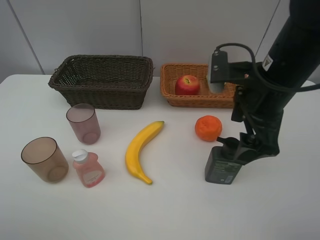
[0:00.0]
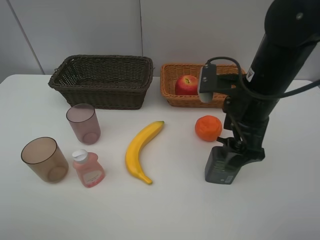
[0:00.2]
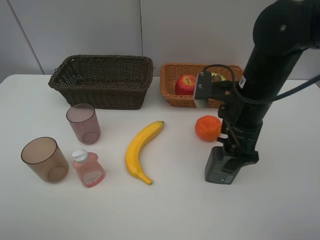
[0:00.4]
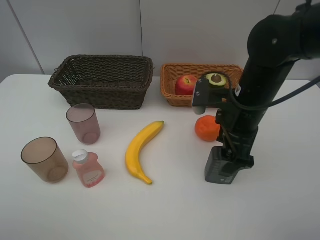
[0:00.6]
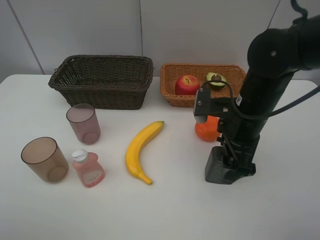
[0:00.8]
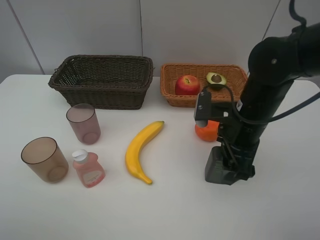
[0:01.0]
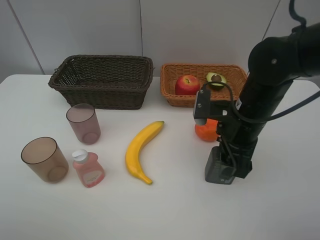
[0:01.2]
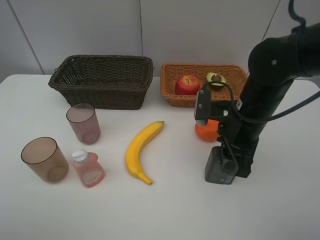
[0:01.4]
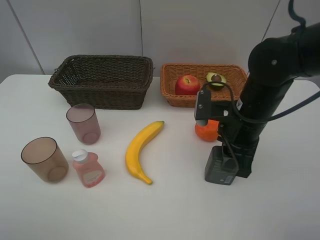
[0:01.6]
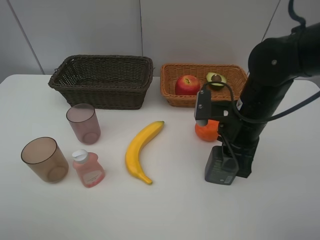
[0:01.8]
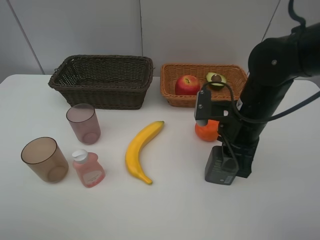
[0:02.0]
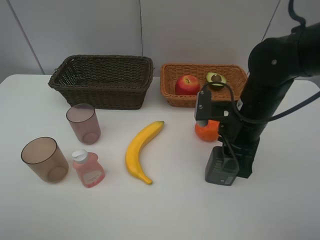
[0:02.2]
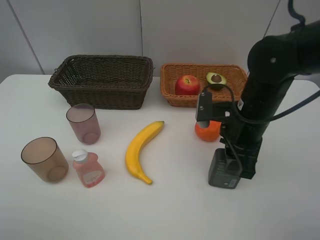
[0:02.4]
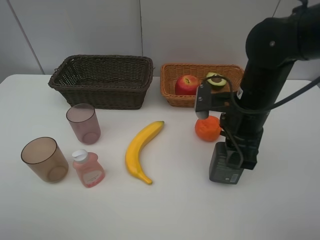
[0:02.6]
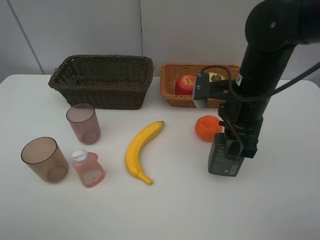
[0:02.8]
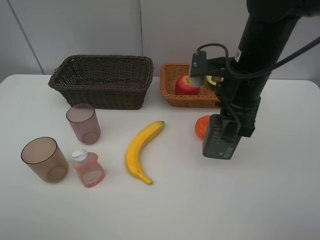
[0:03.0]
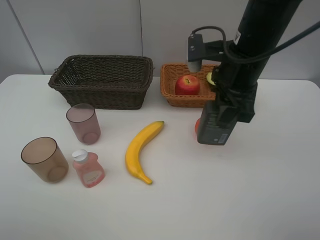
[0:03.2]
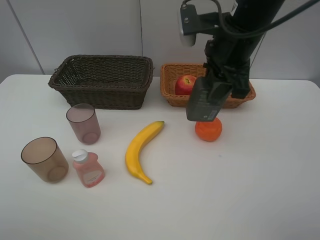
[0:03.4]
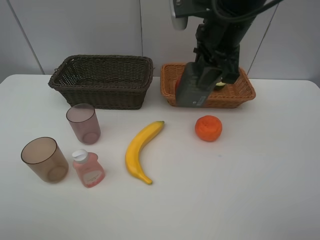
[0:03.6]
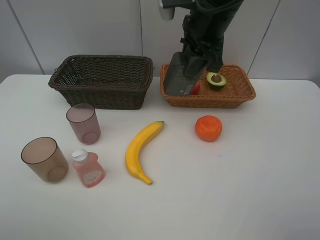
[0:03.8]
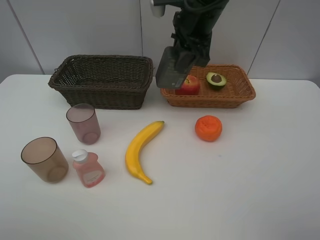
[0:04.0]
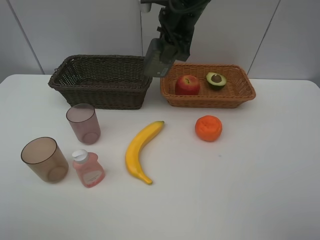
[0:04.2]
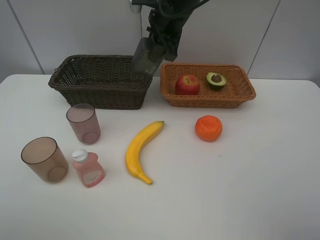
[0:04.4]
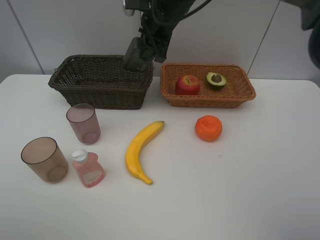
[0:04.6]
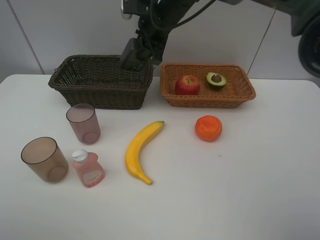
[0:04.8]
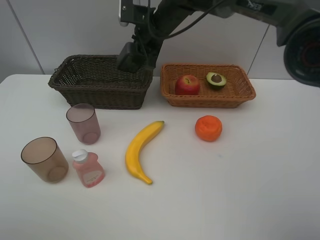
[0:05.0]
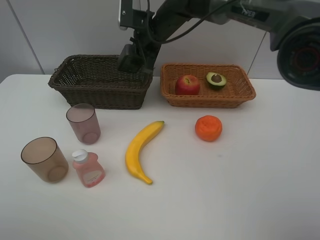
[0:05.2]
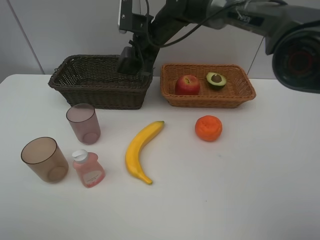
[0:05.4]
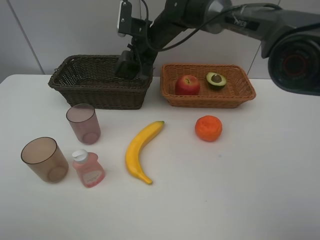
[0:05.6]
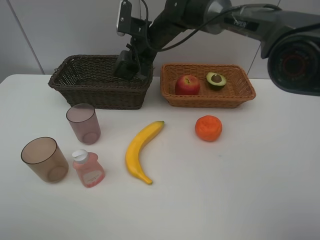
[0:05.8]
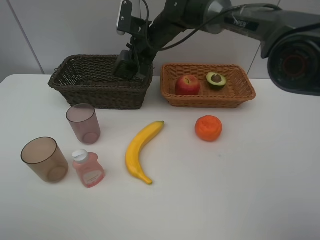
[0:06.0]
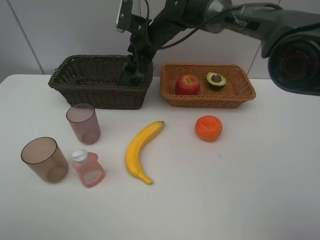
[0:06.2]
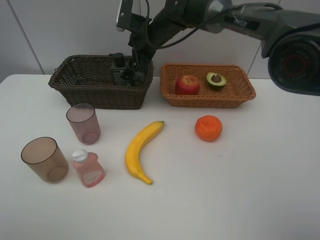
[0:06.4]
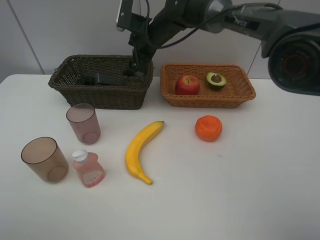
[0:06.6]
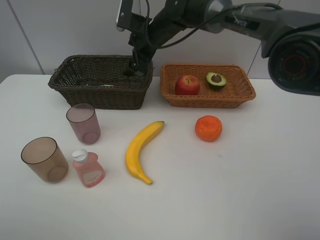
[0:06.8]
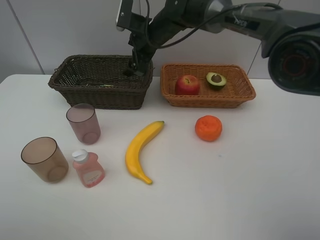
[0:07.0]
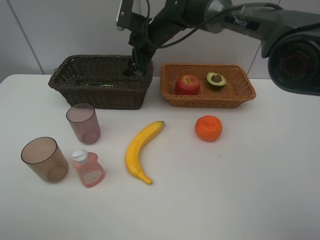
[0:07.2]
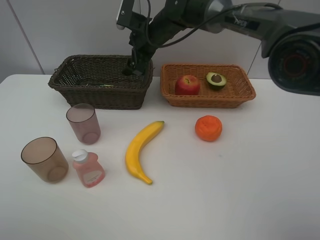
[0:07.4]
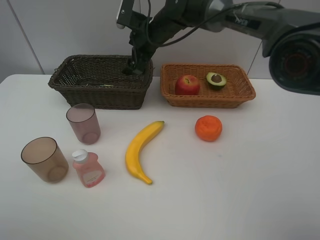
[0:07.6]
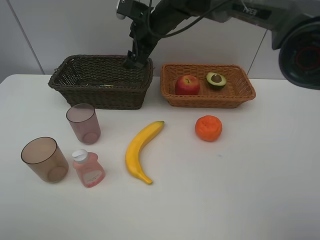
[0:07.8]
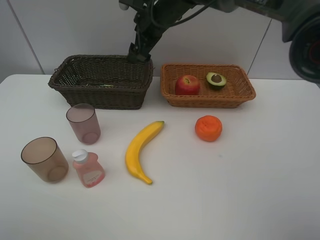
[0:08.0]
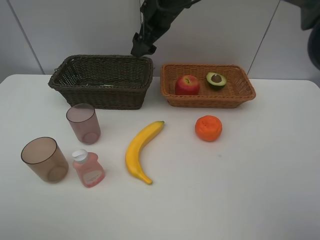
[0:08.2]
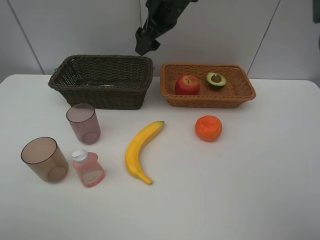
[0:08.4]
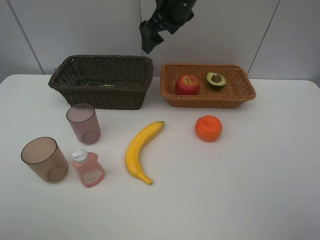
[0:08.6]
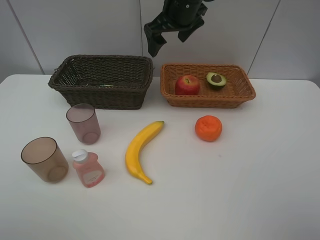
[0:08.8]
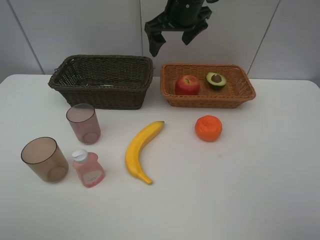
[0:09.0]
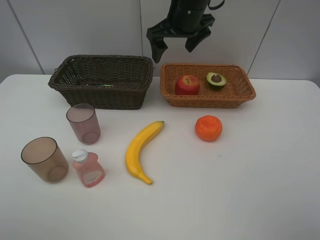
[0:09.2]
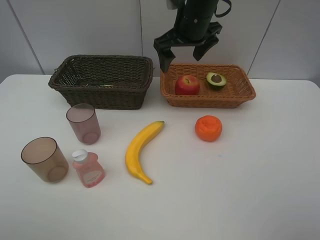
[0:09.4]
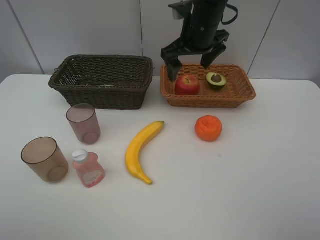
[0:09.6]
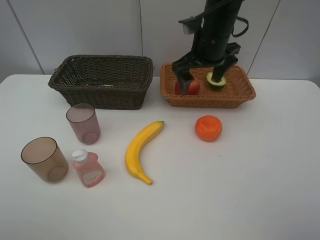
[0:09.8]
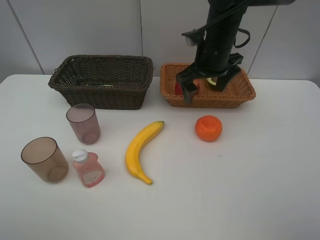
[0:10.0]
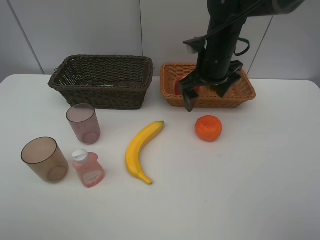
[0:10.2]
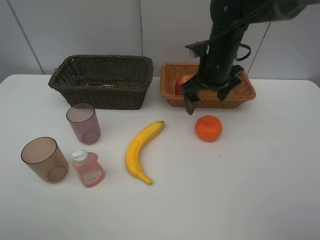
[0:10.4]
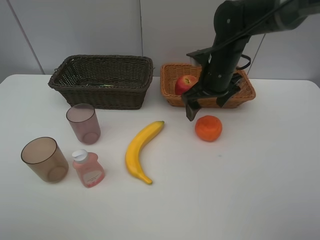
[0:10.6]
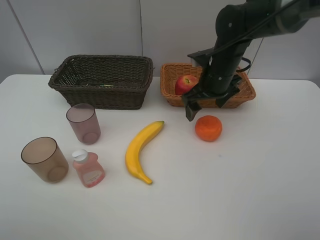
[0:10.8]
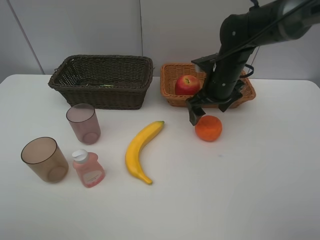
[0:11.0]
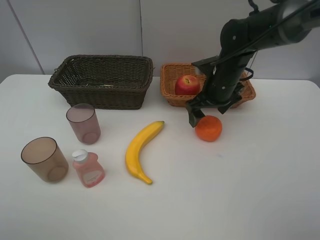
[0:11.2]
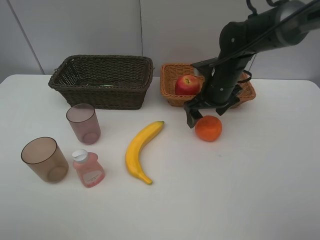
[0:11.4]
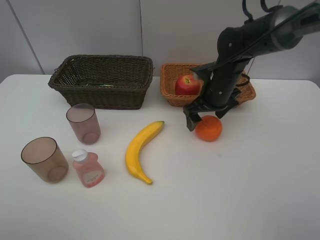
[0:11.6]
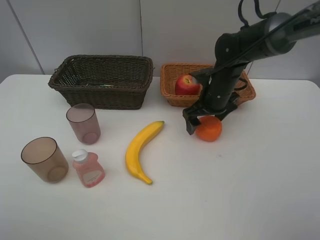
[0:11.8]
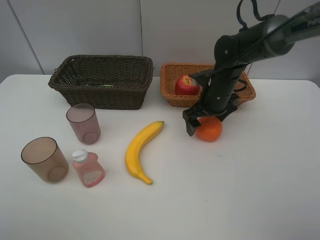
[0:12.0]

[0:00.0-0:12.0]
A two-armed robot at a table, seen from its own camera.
Task of the whole recording: Place multiple objects separately in different baskets.
Step, 0:00.0 to 0:02.6: Pick up the hard facial cleanser with right gripper.
Step, 0:02.8 to 0:06.8: Place the hard facial cleanser in the dark basket with right gripper.
0:00.0 to 0:01.6: The right gripper is displaced downward by approximately 5 cm, and closes up.
0:01.6 to 0:03.0: The right gripper goes about 10 cm upward.
0:03.0 to 0:04.4: The right gripper heads forward and to the left, covering some 20 cm.
0:04.4 to 0:06.0: The right gripper moves downward, some 10 cm.
0:06.0 to 0:07.6: The right gripper opens.
0:07.6 to 0:09.0: The right gripper moves upward and to the right, approximately 10 cm.
0:09.0 to 0:10.4: The right gripper goes about 15 cm downward, to the right and backward.
0:10.4 to 0:12.0: The right gripper travels downward by some 5 cm.

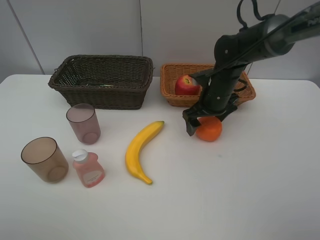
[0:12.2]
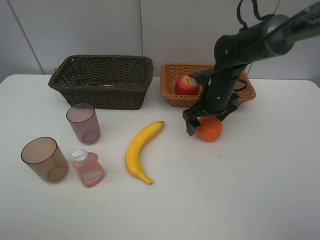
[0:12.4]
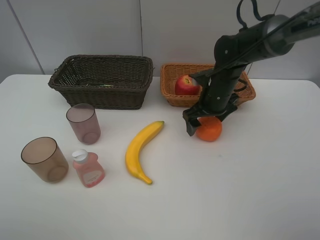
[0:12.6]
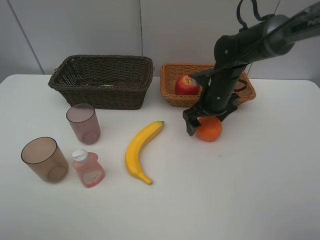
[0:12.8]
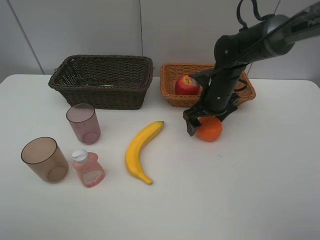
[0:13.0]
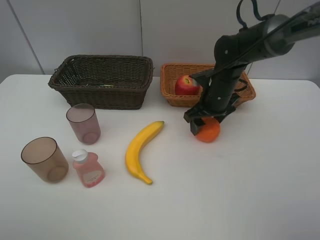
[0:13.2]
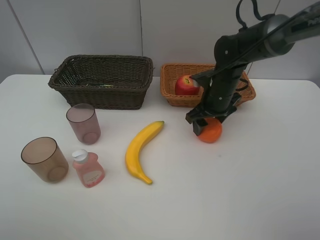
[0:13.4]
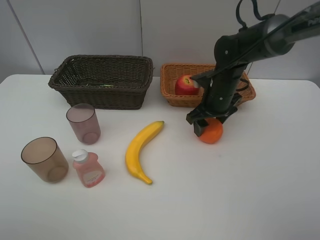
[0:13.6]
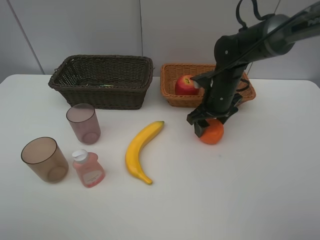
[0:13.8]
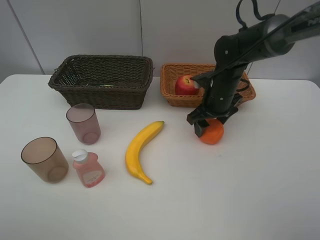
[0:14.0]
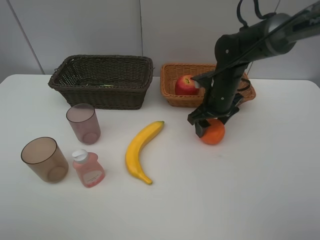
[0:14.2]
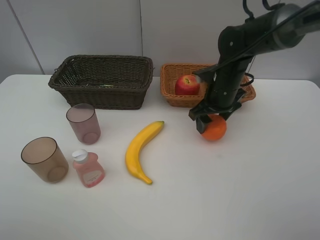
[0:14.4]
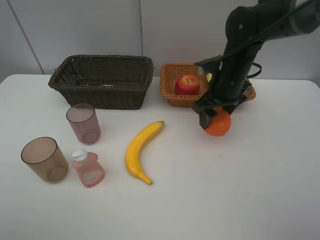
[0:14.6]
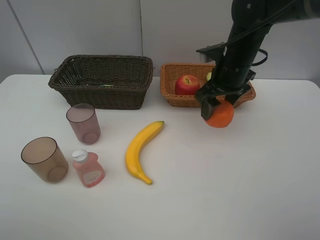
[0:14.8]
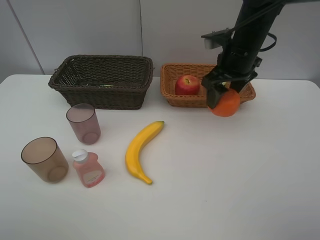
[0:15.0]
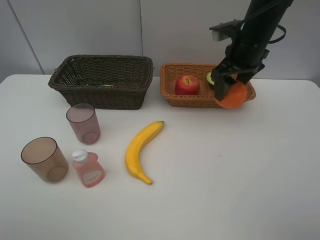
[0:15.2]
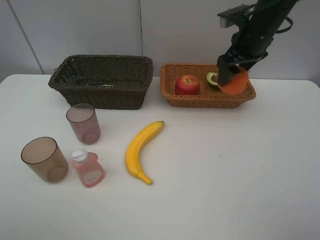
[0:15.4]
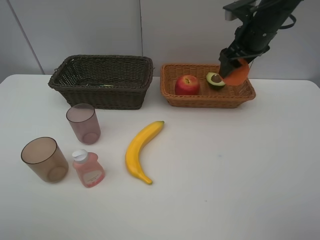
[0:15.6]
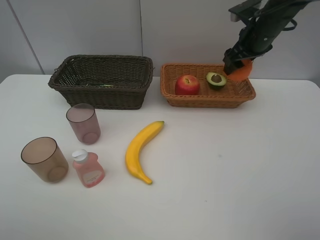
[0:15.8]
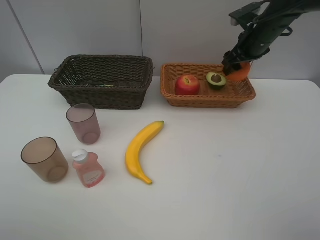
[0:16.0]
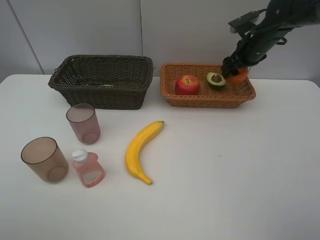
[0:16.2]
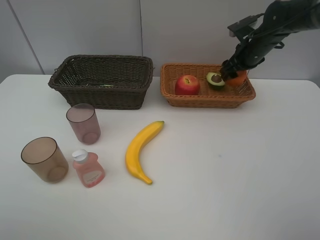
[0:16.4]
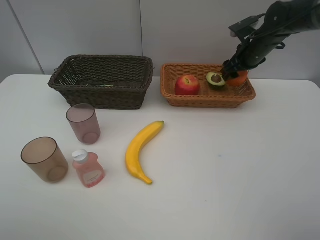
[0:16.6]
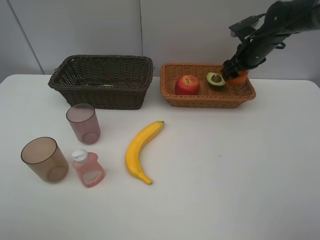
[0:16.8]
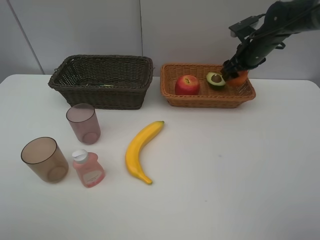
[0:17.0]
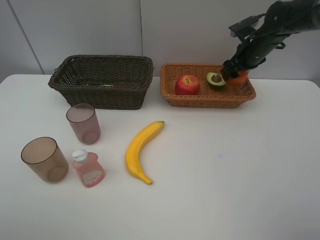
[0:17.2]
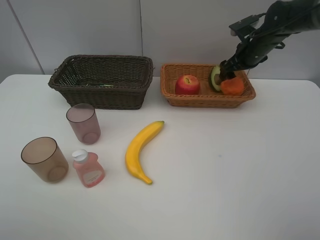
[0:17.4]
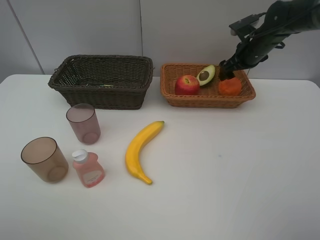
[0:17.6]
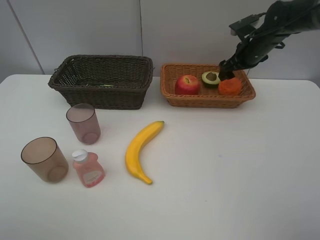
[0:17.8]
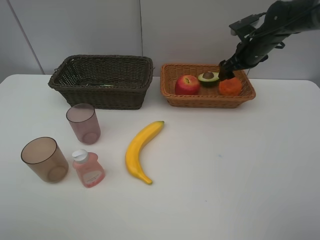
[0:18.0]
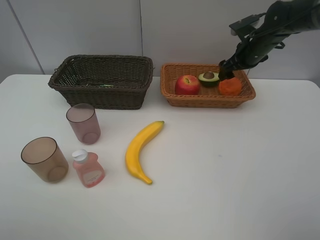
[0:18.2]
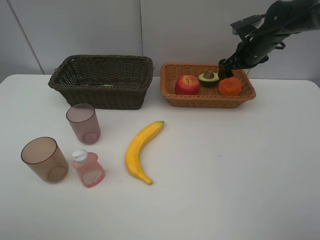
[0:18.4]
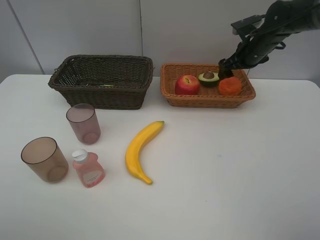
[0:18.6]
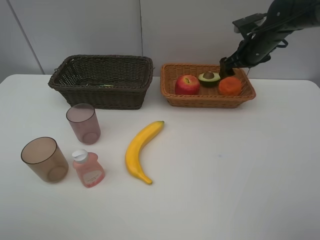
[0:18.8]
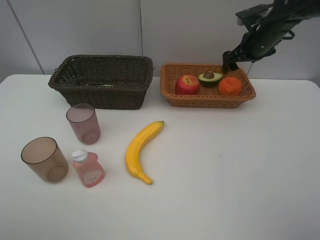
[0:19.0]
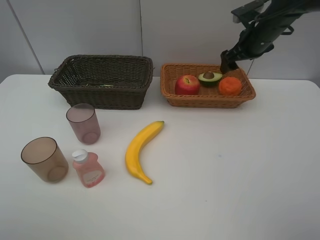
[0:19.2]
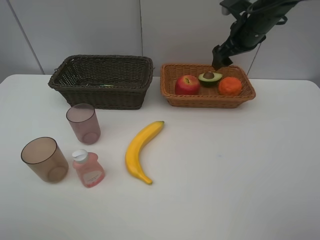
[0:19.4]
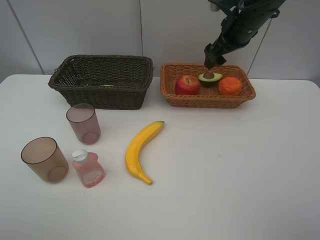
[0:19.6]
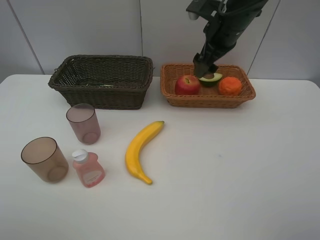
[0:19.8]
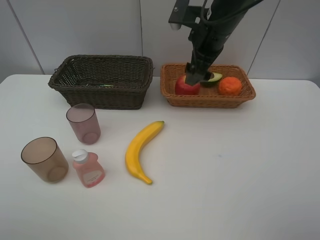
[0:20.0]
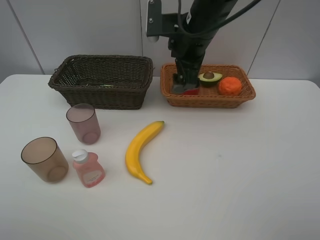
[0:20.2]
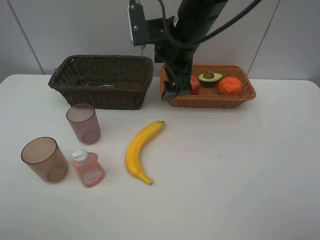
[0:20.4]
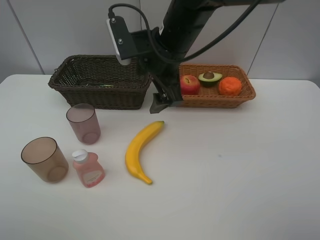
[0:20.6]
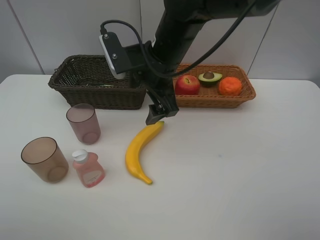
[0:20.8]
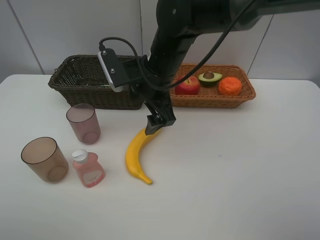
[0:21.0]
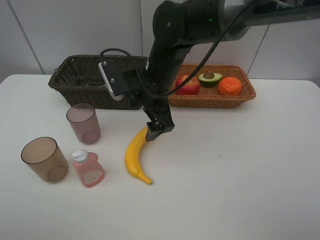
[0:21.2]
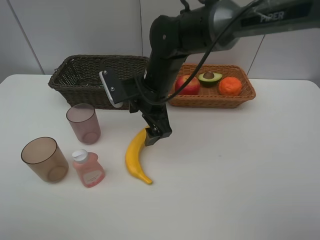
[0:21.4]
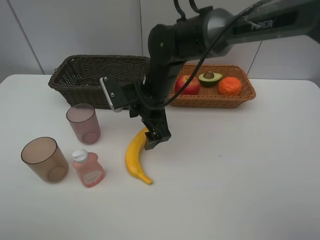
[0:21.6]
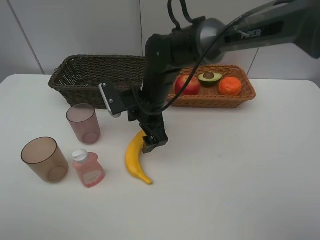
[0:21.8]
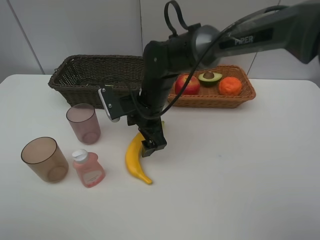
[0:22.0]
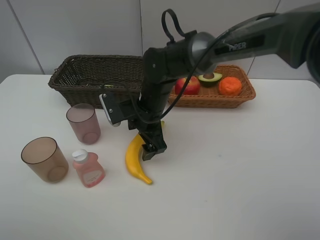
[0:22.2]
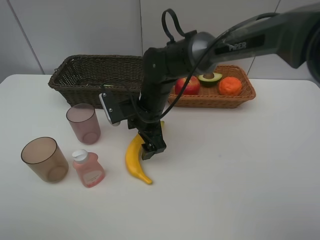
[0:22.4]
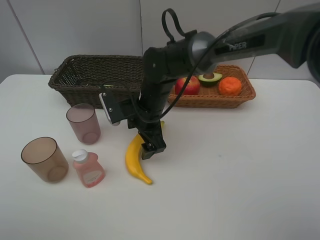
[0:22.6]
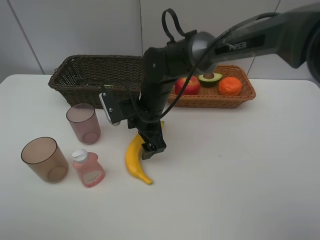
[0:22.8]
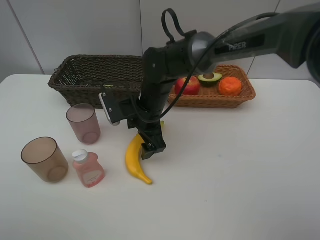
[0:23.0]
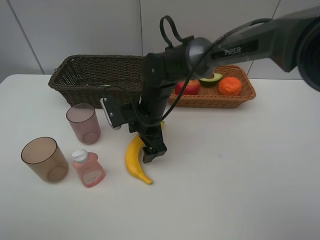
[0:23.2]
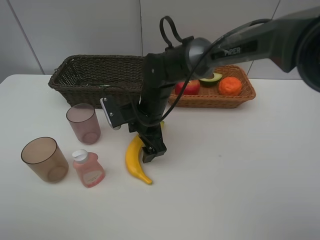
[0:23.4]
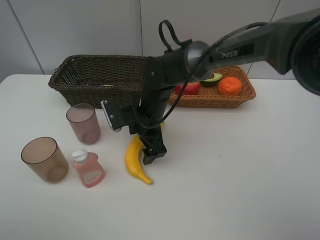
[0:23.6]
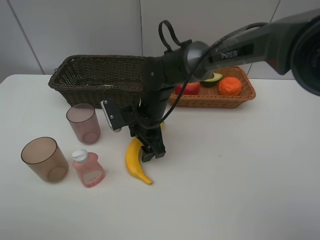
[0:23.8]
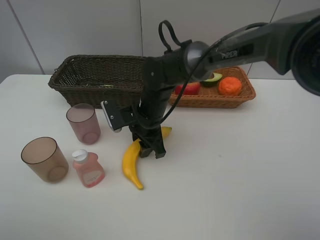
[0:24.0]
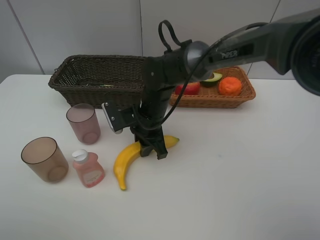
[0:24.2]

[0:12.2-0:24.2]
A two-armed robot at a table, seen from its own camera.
Task of the whole recording: Place multiple objects separately in different baskets.
Step, 0:12.2 to 0:14.4: Pick up the orange with right gripper.
Step, 0:14.6 to 0:19.0: Place the orange in the light basket with right gripper.
0:12.2 to 0:13.8: The right gripper closes up.
0:13.8 to 0:15.2: The right gripper goes approximately 10 cm upward.
0:15.2 to 0:16.6: The right gripper travels forward, to the right and downward by some 15 cm.
0:16.6 to 0:18.2: The right gripper opens up.
0:18.2 to 0:19.8: The right gripper goes roughly 15 cm to the left, backward and upward.
0:19.8 to 0:21.2: The right gripper is displaced to the left, downward and backward by some 15 cm.
0:21.2 to 0:22.6: The right gripper shifts some 5 cm downward.
0:22.6 to 0:24.2: The right gripper closes its fingers.
